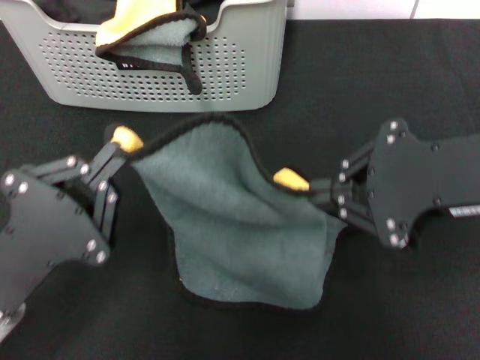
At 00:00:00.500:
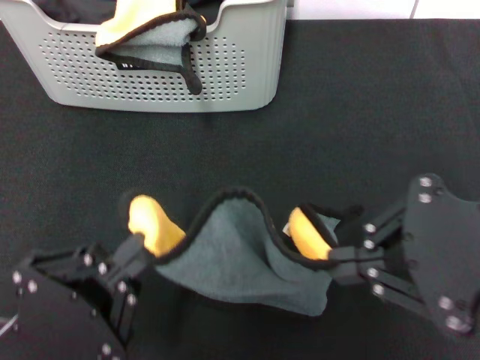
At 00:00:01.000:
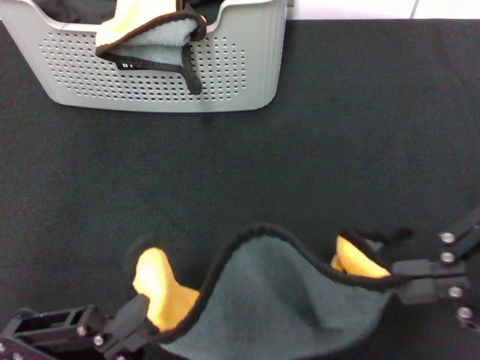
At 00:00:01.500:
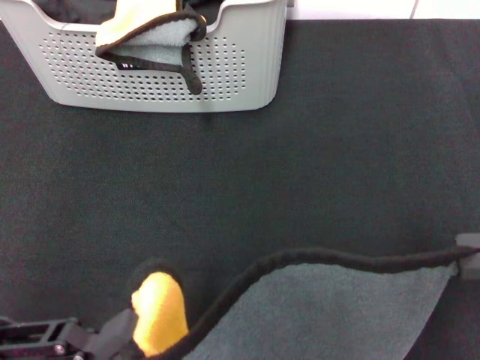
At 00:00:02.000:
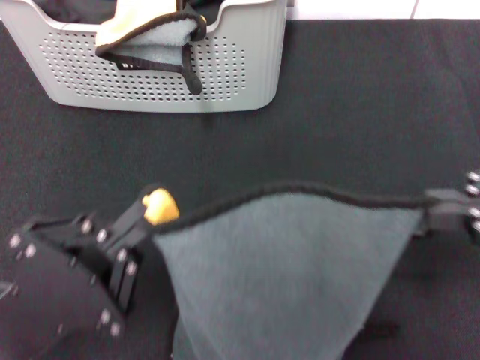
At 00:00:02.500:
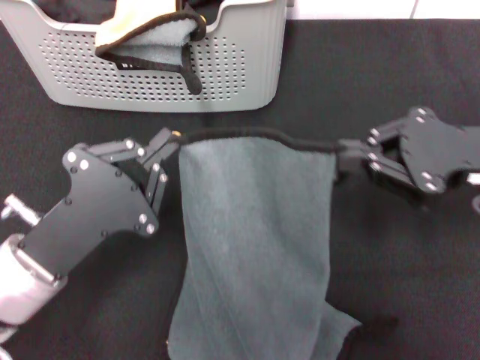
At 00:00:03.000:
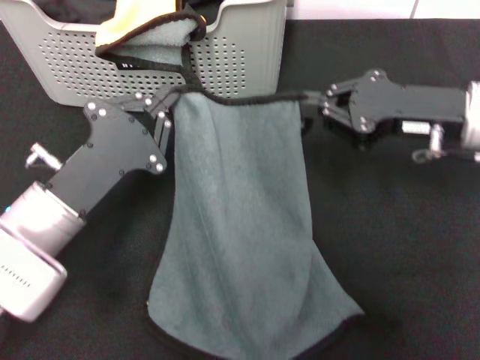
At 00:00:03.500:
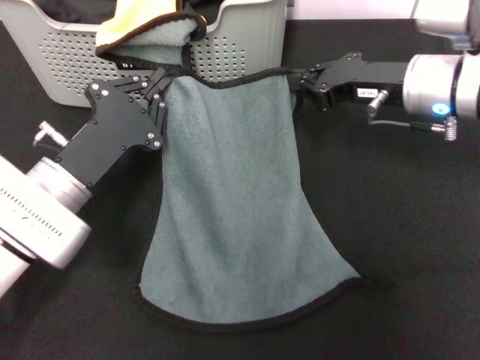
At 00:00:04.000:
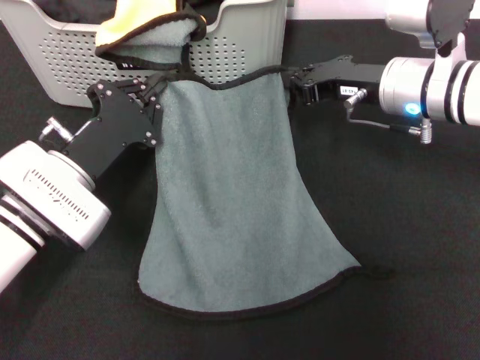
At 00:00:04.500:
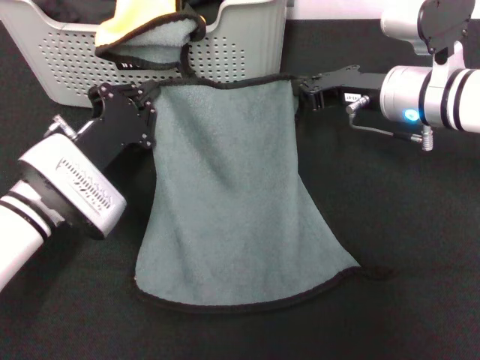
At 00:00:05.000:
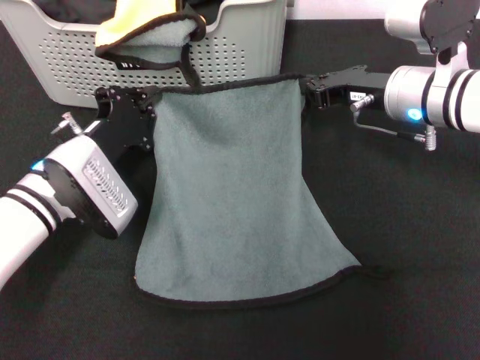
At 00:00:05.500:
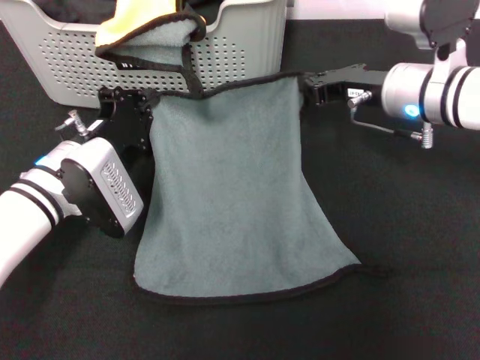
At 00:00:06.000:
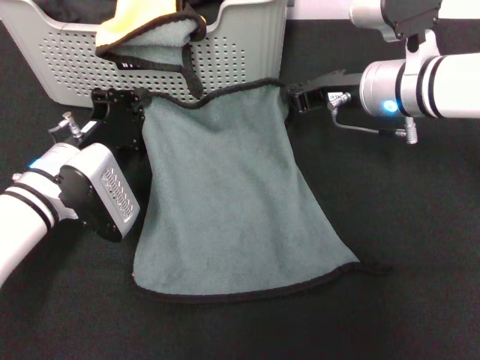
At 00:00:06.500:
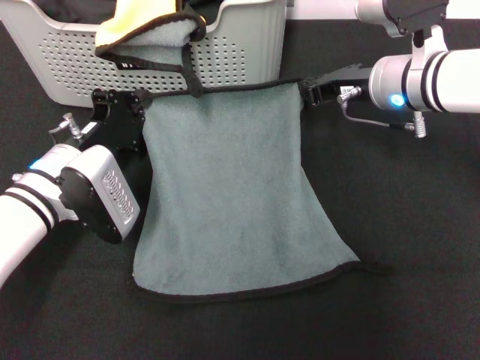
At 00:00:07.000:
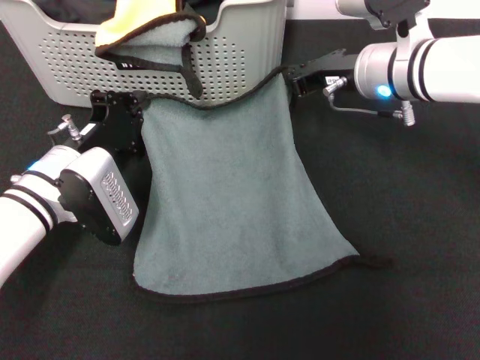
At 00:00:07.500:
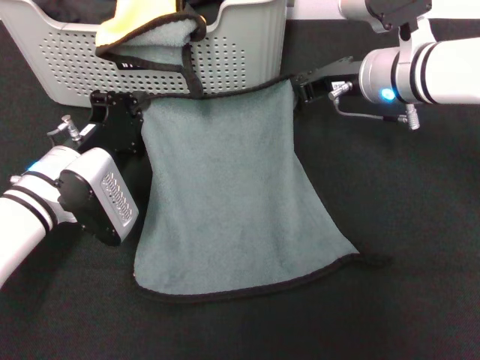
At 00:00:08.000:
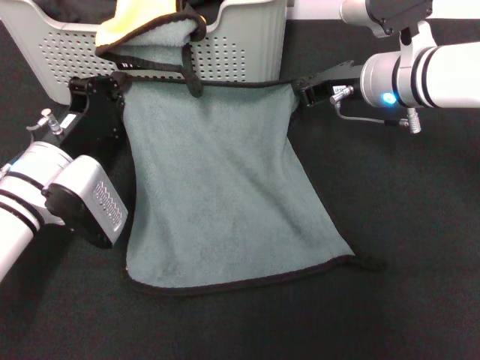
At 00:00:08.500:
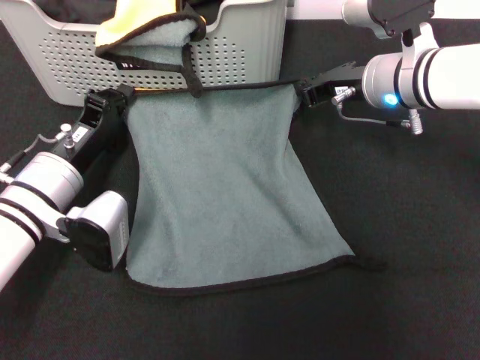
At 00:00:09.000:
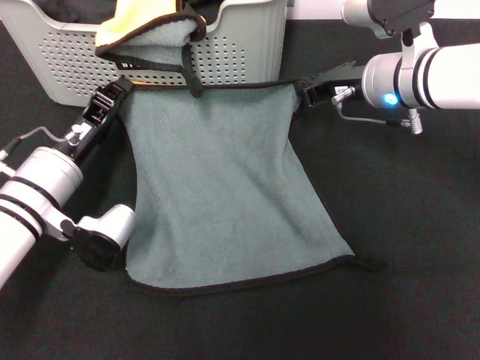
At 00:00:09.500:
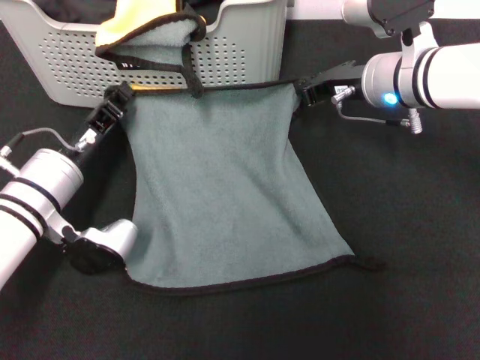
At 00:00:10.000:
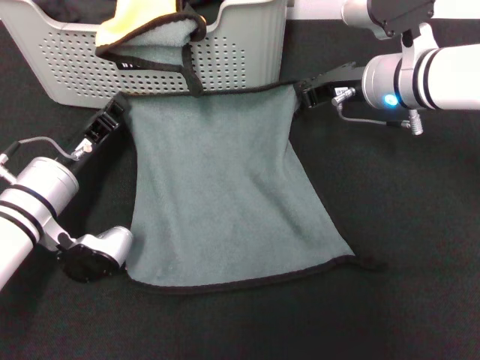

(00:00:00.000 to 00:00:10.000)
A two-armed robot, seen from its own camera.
Task of the whole recording: pick up the towel from the storage box and lay it flat on the black tablecloth.
00:00:00.000 - 00:00:02.000: The left gripper reaches roughly 10 cm backward, then returns. The right gripper is displaced to the right by roughly 10 cm.
00:00:02.000 - 00:00:04.000: The right gripper shifts approximately 25 cm forward, to the left and downward. Meanwhile the left gripper heads forward, covering some 15 cm.
00:00:06.000 - 00:00:08.000: The grippers move only a little.

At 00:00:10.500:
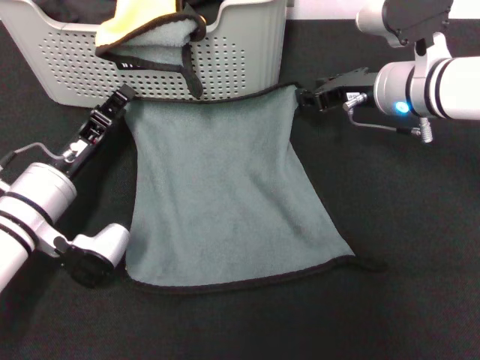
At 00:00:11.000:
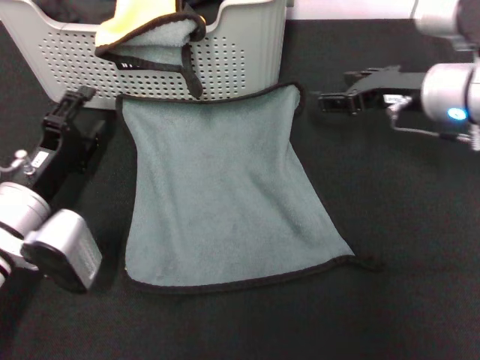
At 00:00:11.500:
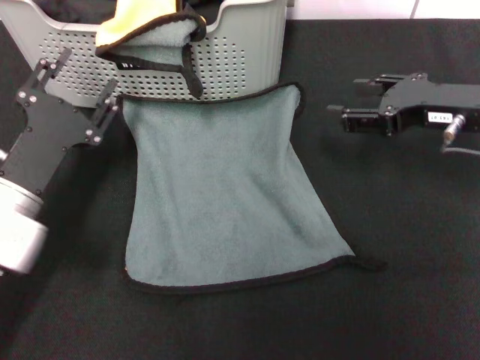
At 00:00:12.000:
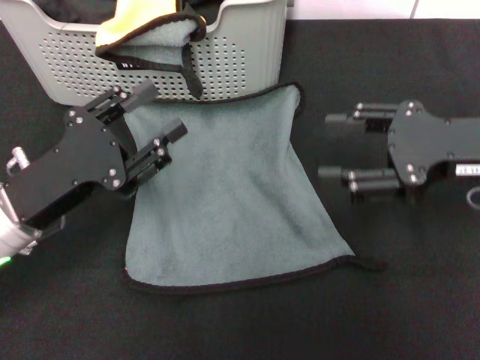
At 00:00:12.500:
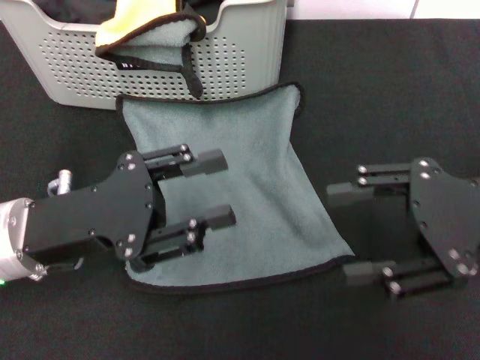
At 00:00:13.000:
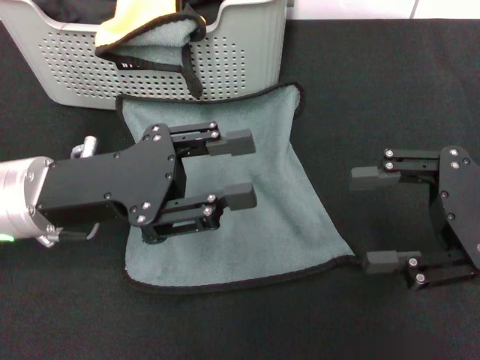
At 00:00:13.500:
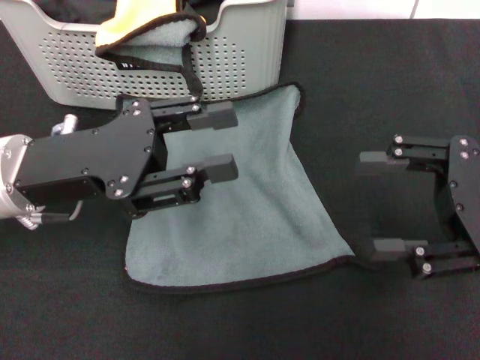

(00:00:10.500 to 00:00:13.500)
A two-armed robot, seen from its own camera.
Task of the whole recording: pick up the towel from the storage box and lay it flat on the black tablecloth.
00:00:10.500 - 00:00:12.000: The left gripper shifts some 10 cm upward and backward, while the right gripper shifts approximately 15 cm backward, to the right and upward, and opens up.
00:00:12.000 - 00:00:13.500: The left gripper travels upward by roughly 5 cm.
